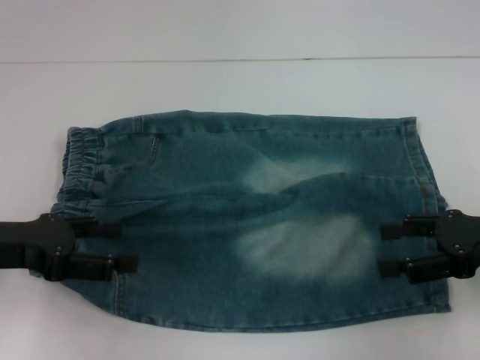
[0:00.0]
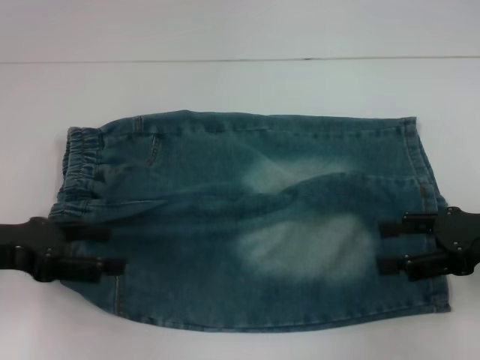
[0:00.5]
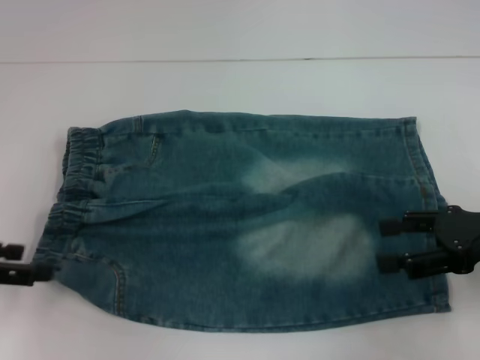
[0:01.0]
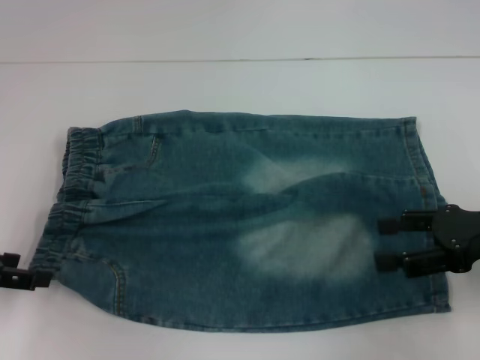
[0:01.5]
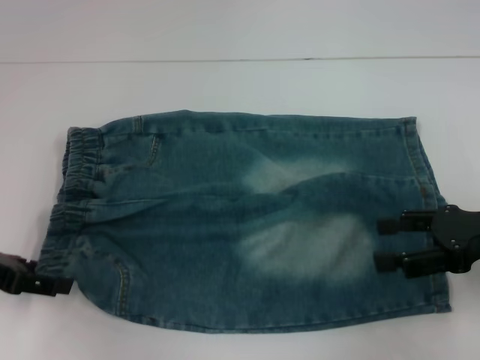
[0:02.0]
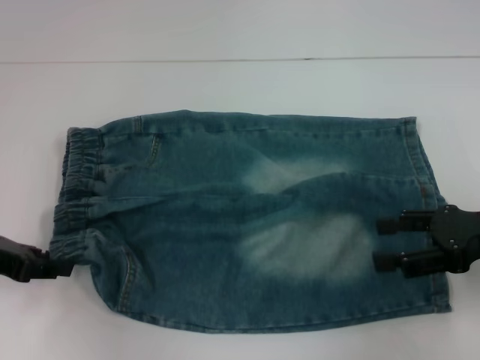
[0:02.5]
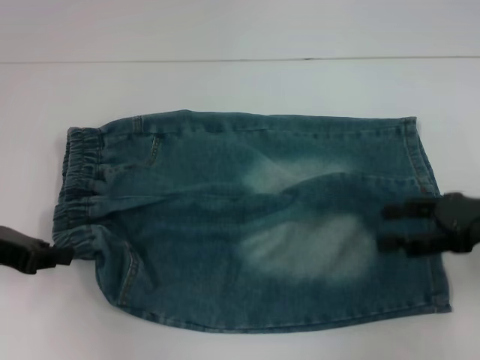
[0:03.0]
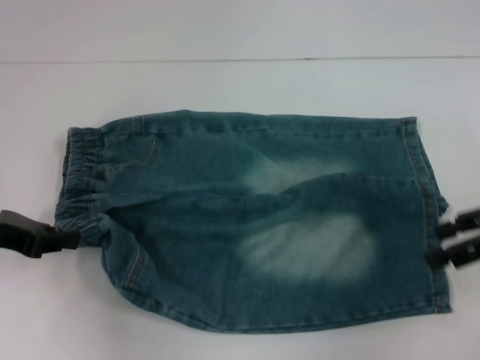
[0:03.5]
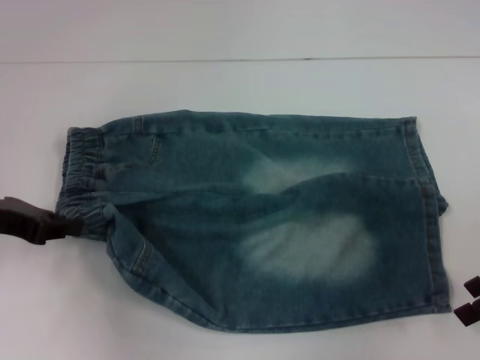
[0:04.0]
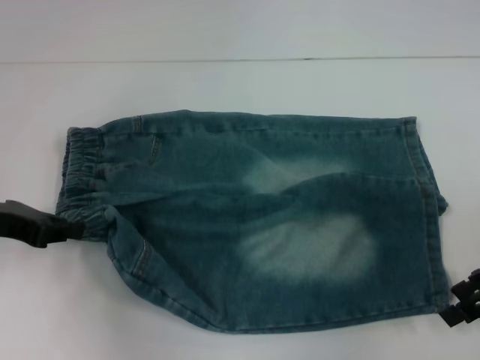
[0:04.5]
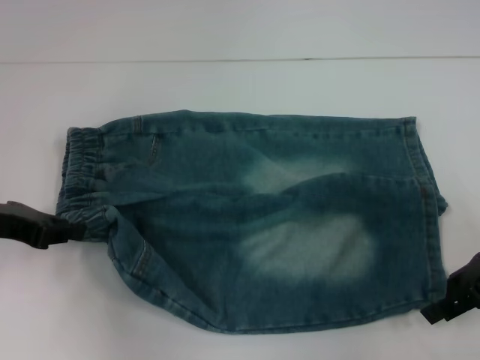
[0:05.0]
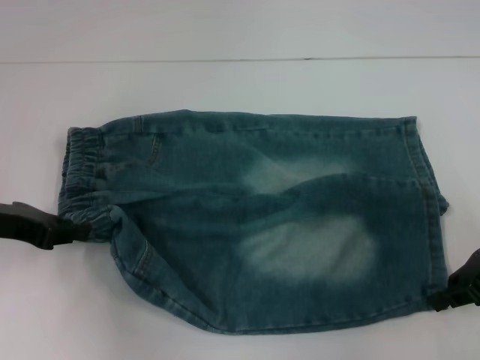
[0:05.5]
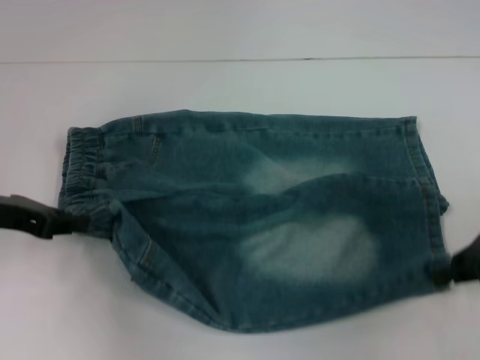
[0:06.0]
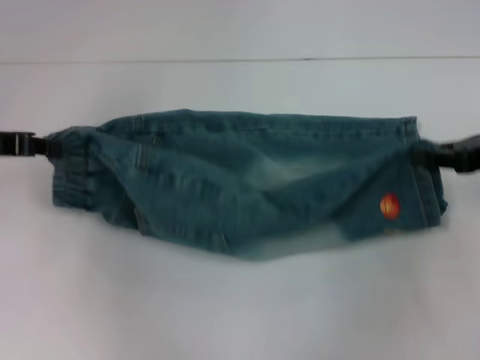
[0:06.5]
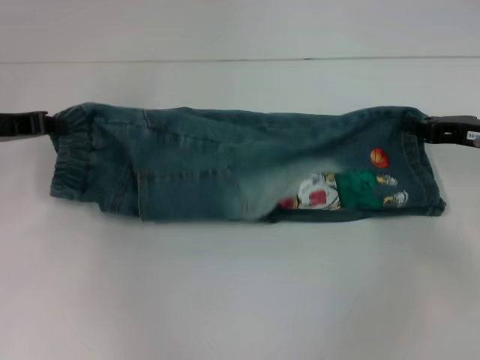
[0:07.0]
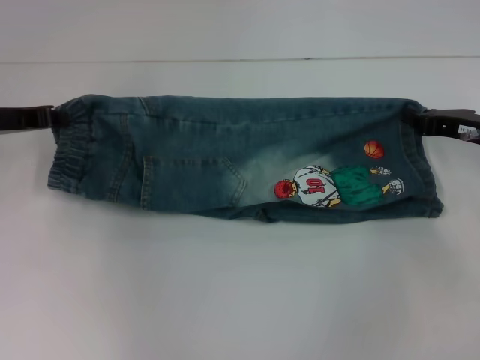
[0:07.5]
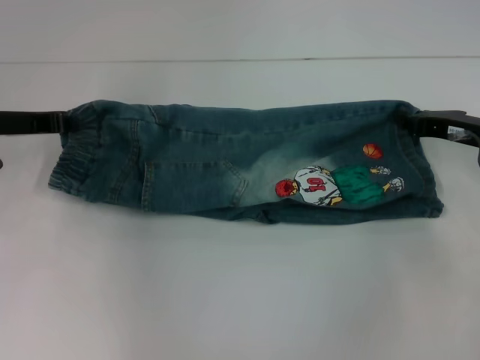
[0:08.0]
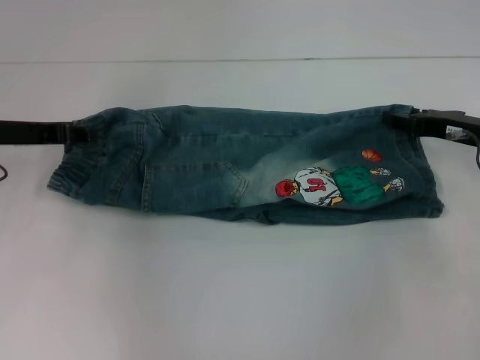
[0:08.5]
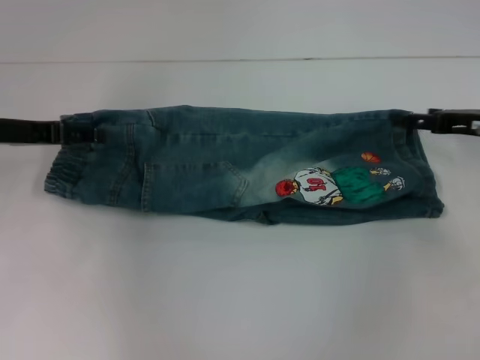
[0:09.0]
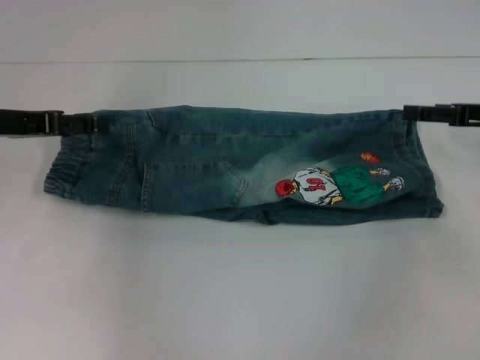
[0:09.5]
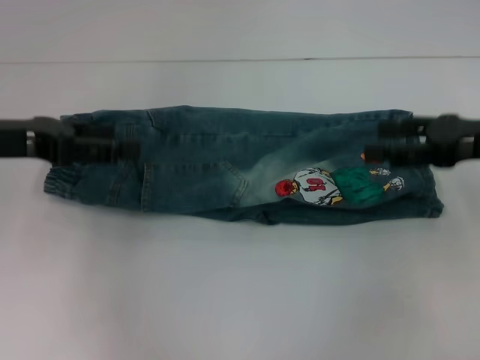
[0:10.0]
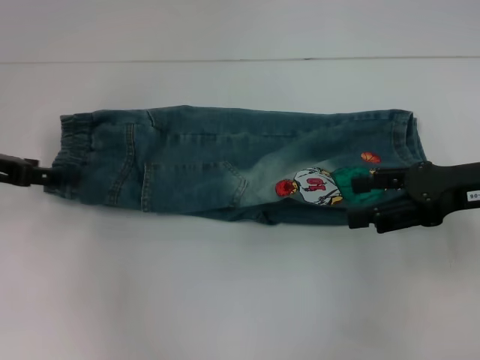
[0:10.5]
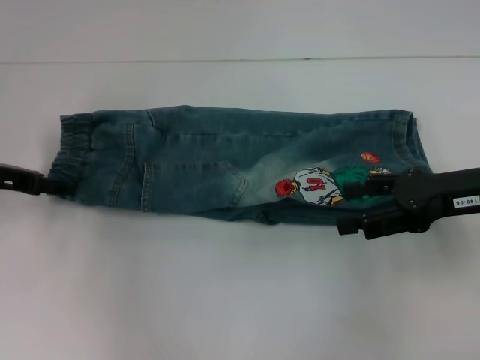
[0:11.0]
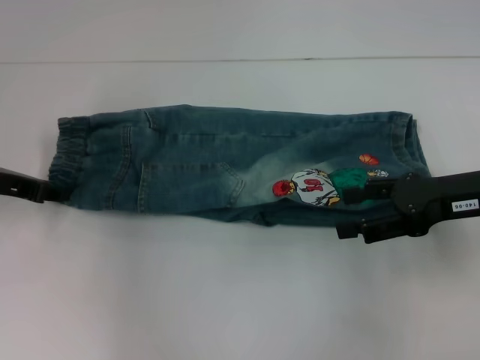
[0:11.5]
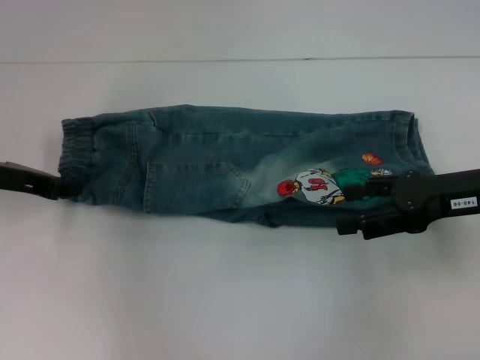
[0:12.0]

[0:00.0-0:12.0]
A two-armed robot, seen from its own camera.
Step, 0:00.0 to 0:03.0: Hold the lower left waistband with your left hand.
Step, 0:03.5 to 0:05.5: Grab the lower right pant leg with your right hand.
Step, 0:06.0 to 0:09.5: Fold upward with your right hand.
0:02.0 to 0:04.0: The left gripper closes up.
0:04.0 to 0:06.0: The right gripper closes its fingers.
0:06.0 to 0:08.0: Both grippers move forward, about 5 cm.
0:08.0 to 0:10.0: The left gripper travels backward by roughly 5 cm, and opens its fingers, while the right gripper is displaced upward by roughly 5 cm, and opens up.
0:10.0 to 0:12.0: The left gripper is displaced downward by approximately 5 cm, and closes.

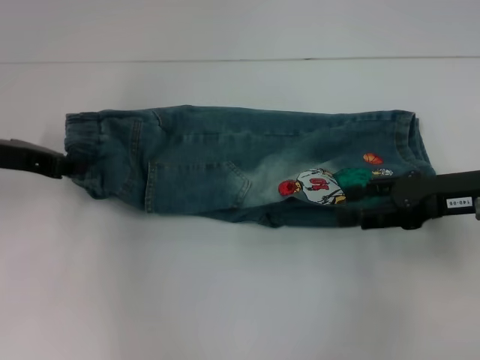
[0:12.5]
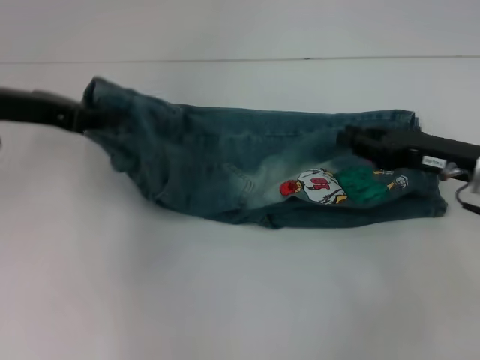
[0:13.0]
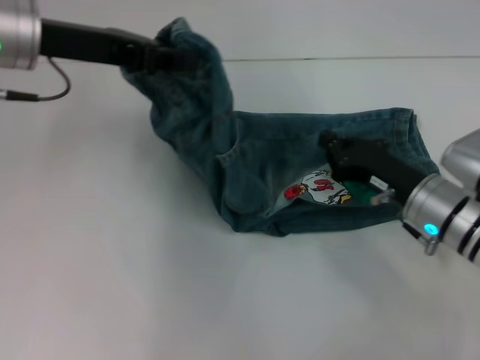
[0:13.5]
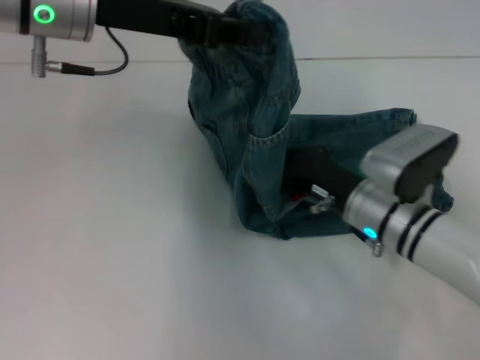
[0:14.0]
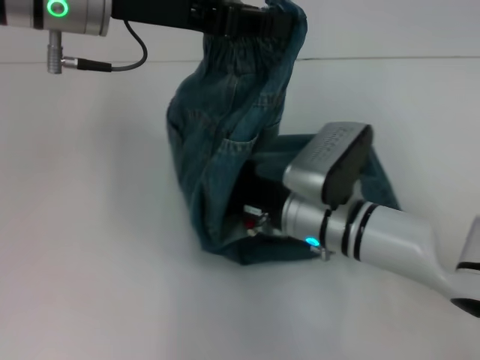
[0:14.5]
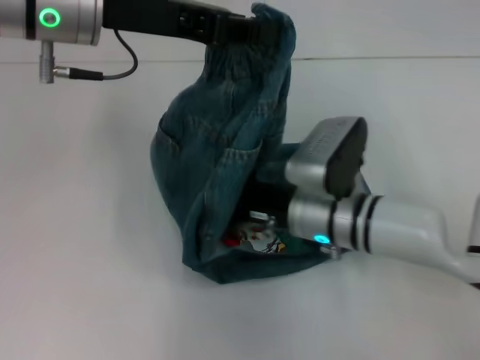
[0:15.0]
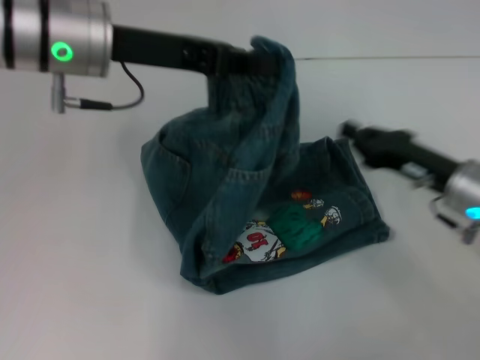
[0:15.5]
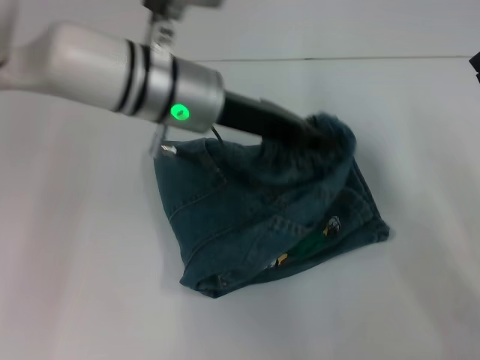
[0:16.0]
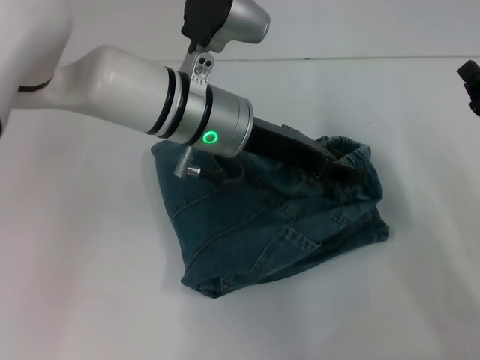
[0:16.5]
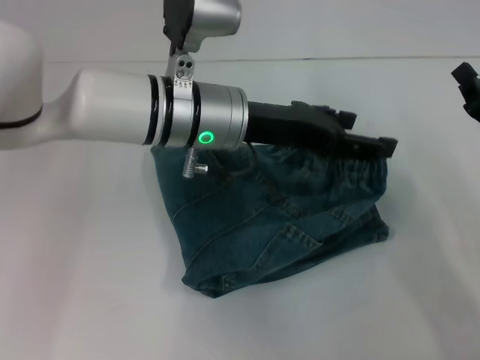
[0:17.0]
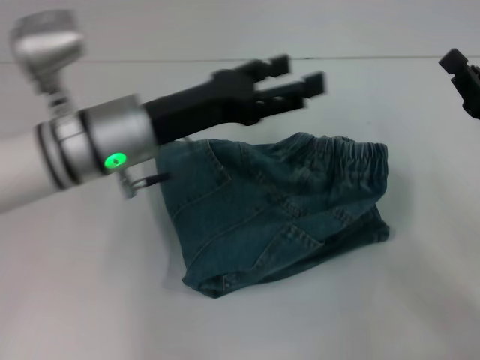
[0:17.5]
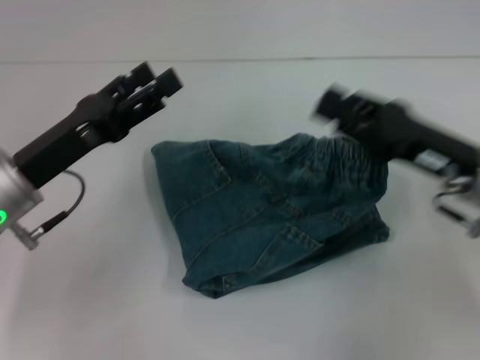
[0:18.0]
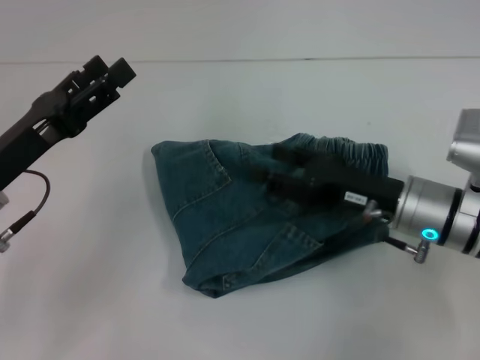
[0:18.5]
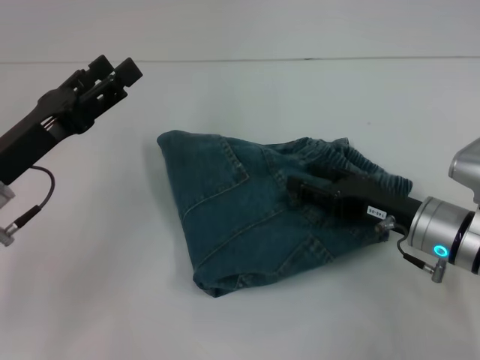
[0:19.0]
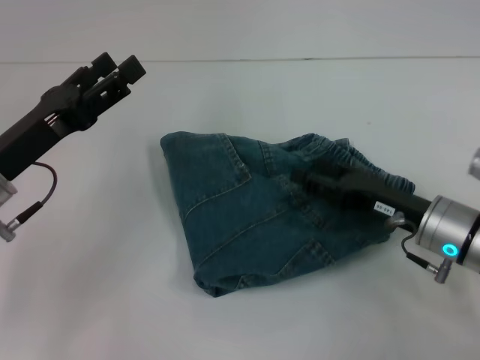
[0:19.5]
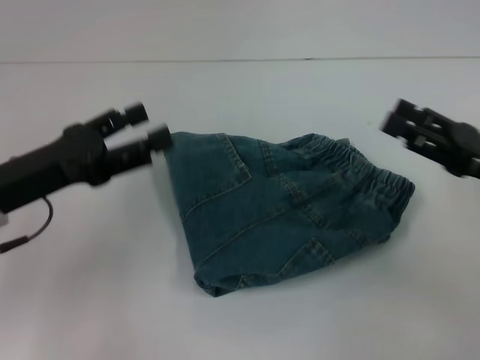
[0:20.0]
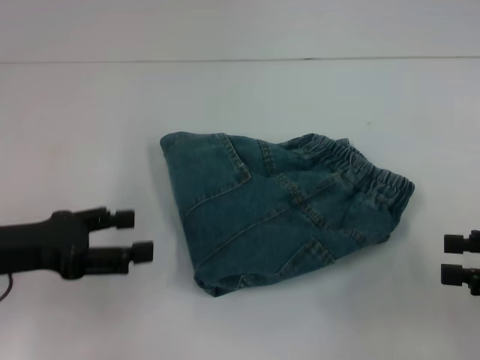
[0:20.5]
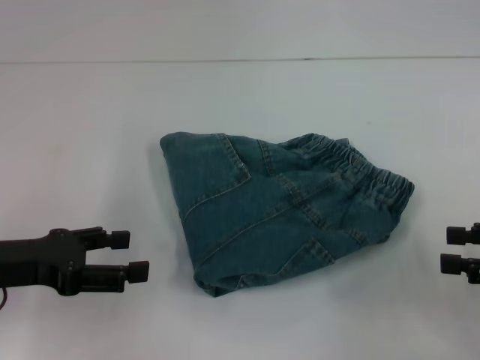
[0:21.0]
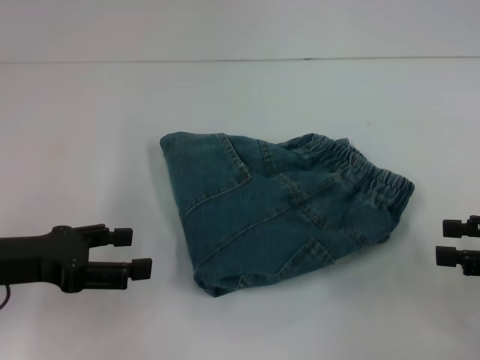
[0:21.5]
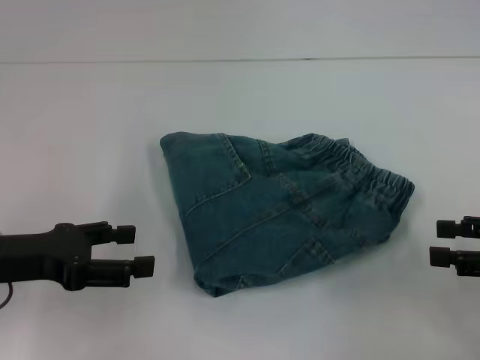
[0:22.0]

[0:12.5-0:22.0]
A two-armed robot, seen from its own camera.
Step, 0:13.0 to 0:15.0: Press the middle of the pants with your right hand.
Step, 0:15.5 to 0:16.5: Fold to the right with your left hand.
0:12.5 to 0:14.5: The right gripper is displaced to the left by some 20 cm, and closes, while the left gripper goes roughly 20 cm to the right and upward.
0:14.5 to 0:16.5: The right gripper shifts roughly 20 cm to the right, while the left gripper heads downward and to the right, covering roughly 15 cm.
0:16.5 to 0:18.0: The left gripper travels to the left and backward by some 20 cm, and opens up; the right gripper moves to the left, some 5 cm.
0:18.0 to 0:20.0: The right gripper heads to the right, covering approximately 5 cm, and opens its fingers.
0:20.0 to 0:22.0: The right gripper moves to the right, about 5 cm.

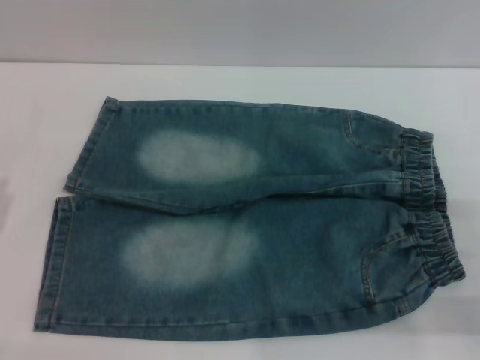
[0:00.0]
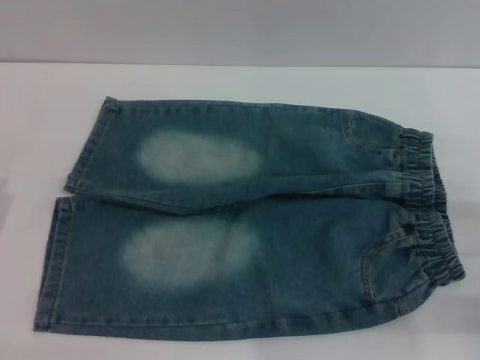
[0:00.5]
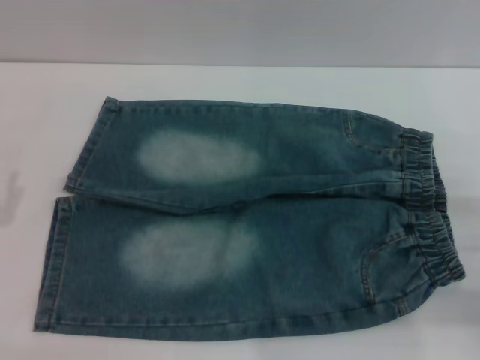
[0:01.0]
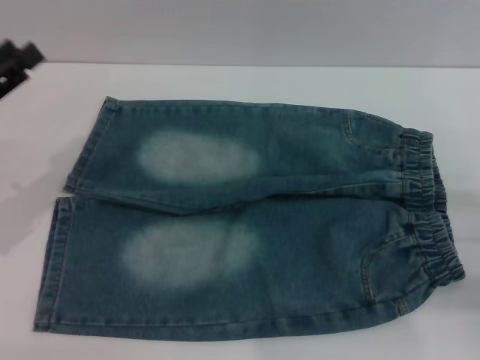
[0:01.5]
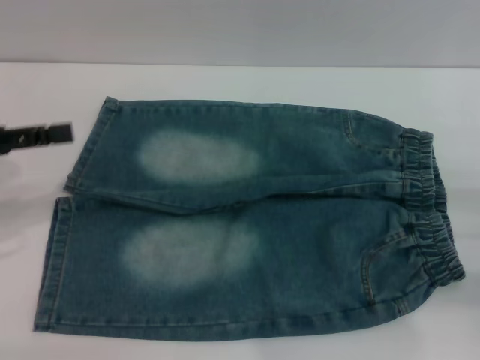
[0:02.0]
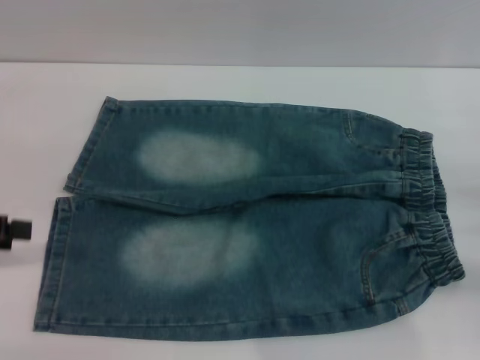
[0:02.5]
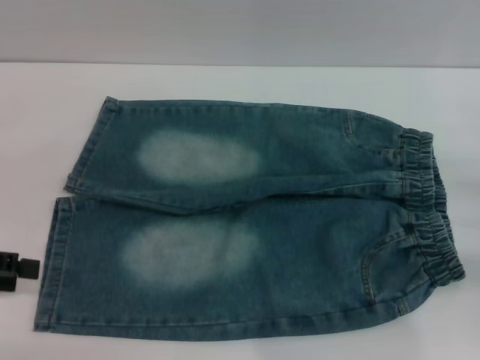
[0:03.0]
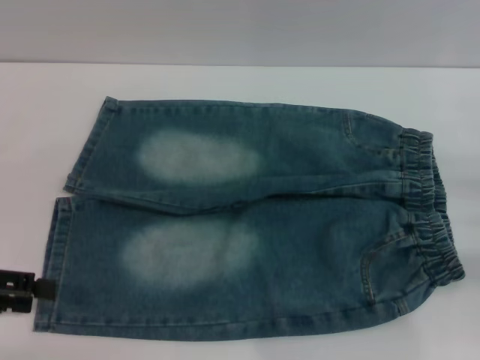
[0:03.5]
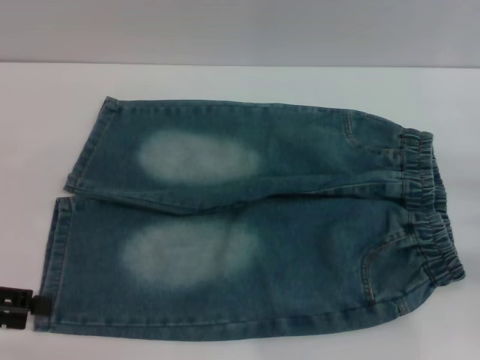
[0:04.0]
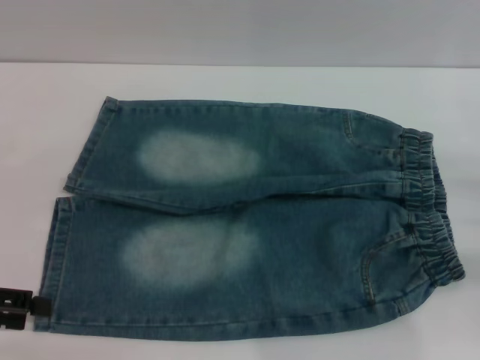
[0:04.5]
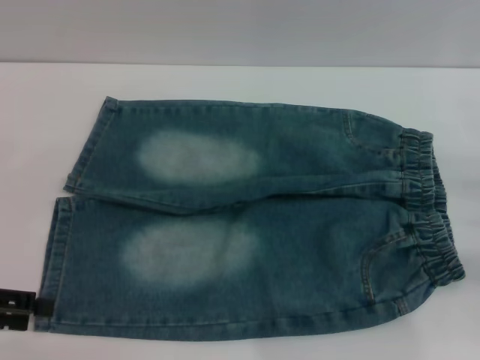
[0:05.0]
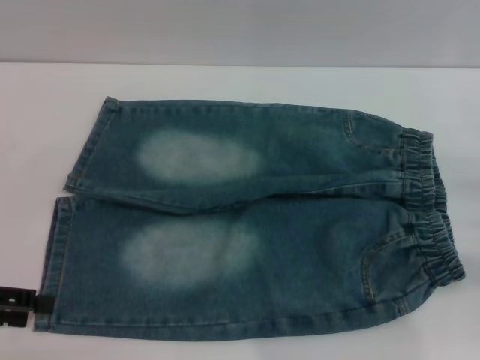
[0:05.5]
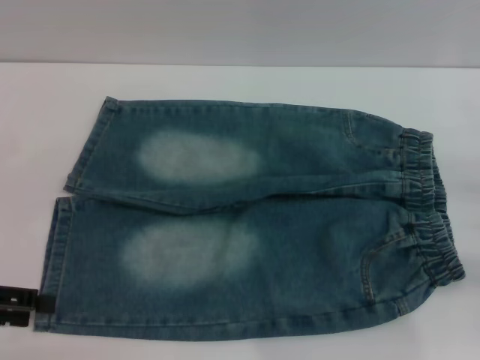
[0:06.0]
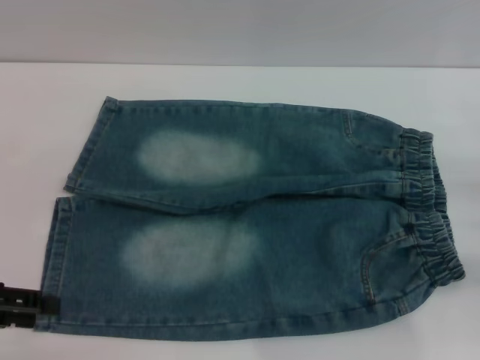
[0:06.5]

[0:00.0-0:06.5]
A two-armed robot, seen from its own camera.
0:00.0 to 0:02.0: The left gripper travels upward and forward by roughly 15 cm.
0:02.0 to 0:04.5: The left gripper heads downward and backward, covering approximately 10 cm.
0:04.5 to 0:06.5: Neither gripper changes place.
